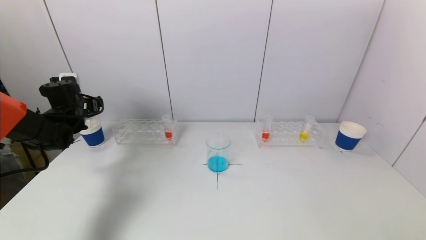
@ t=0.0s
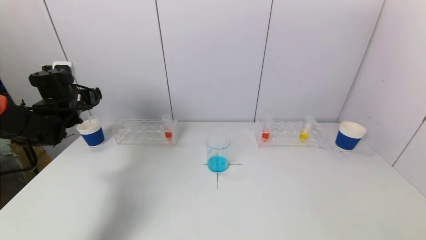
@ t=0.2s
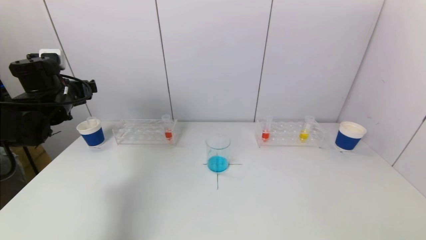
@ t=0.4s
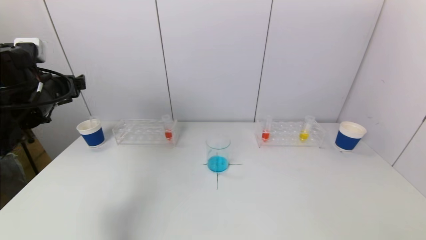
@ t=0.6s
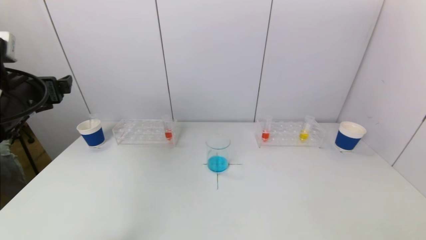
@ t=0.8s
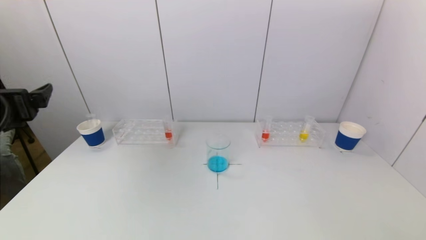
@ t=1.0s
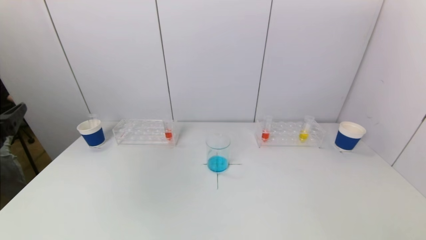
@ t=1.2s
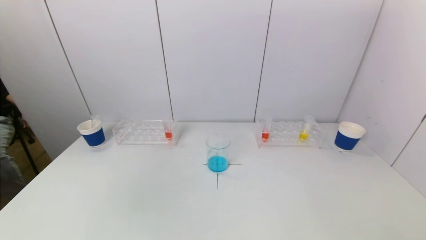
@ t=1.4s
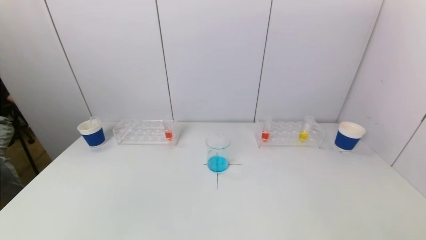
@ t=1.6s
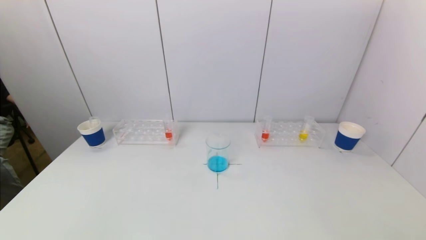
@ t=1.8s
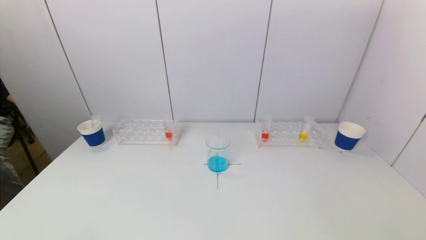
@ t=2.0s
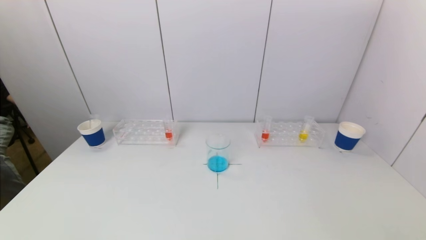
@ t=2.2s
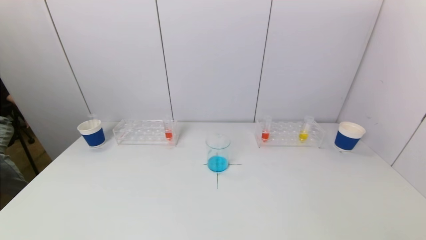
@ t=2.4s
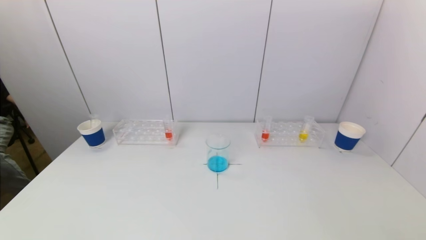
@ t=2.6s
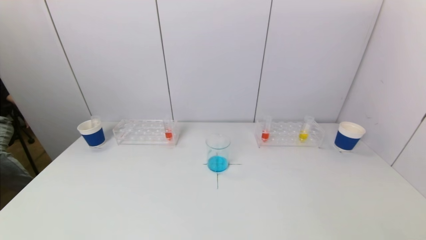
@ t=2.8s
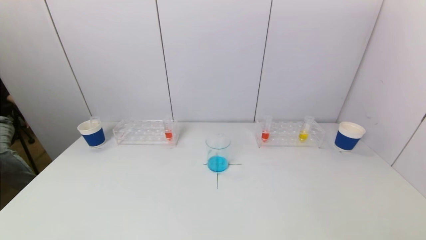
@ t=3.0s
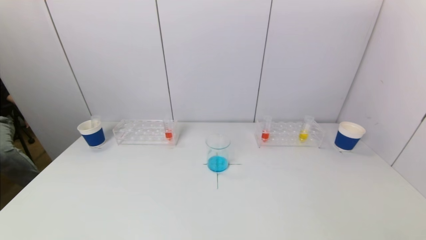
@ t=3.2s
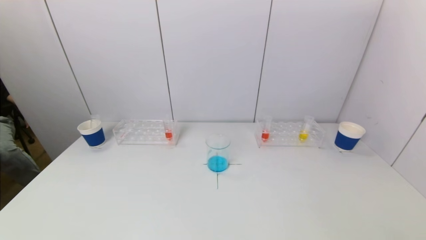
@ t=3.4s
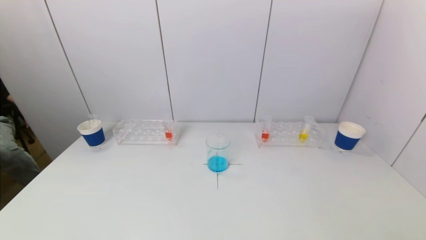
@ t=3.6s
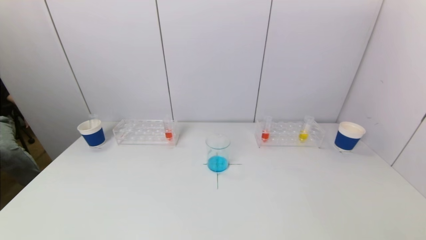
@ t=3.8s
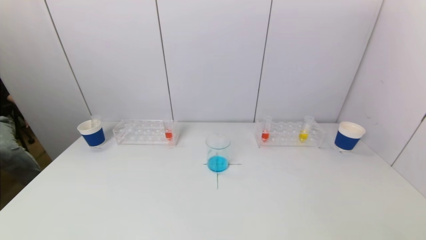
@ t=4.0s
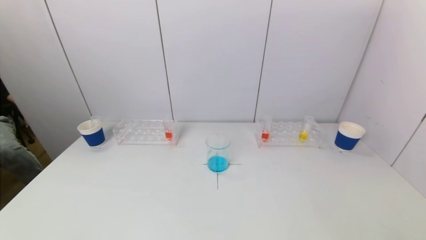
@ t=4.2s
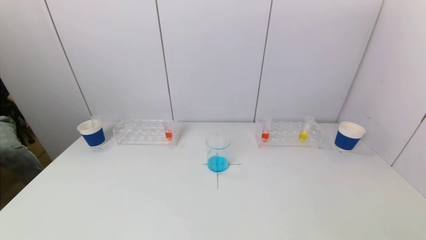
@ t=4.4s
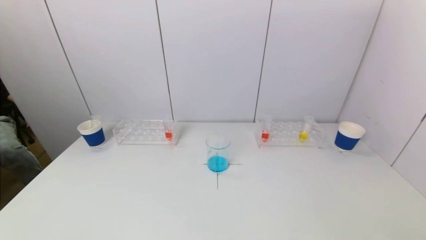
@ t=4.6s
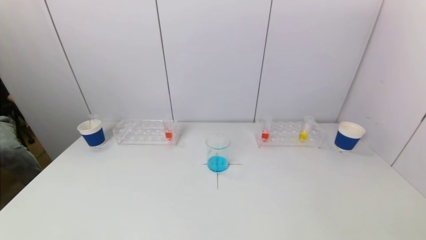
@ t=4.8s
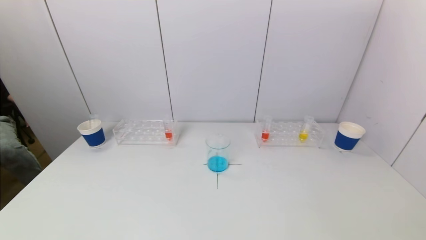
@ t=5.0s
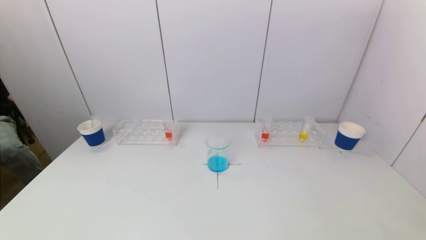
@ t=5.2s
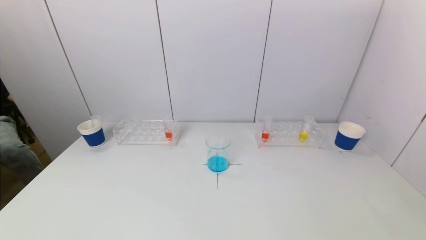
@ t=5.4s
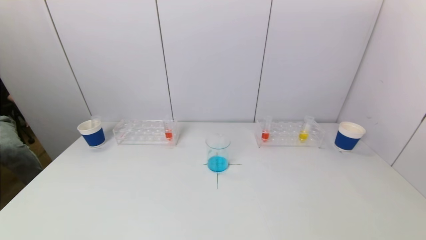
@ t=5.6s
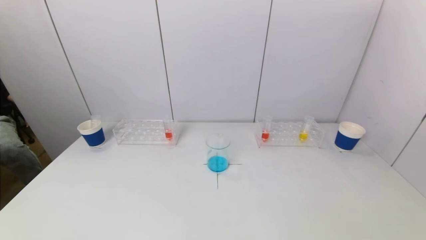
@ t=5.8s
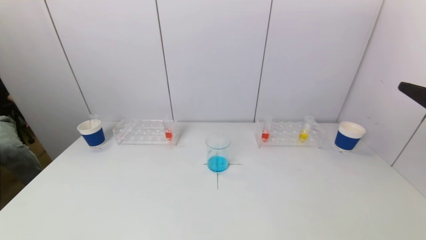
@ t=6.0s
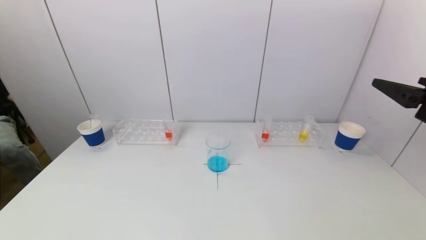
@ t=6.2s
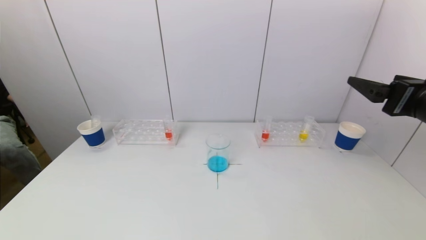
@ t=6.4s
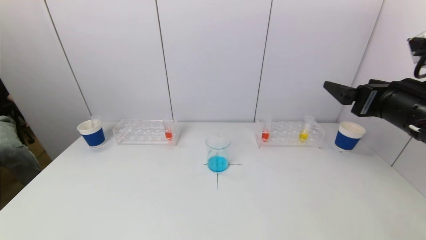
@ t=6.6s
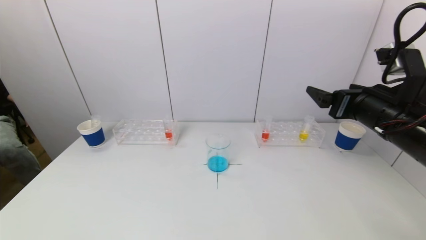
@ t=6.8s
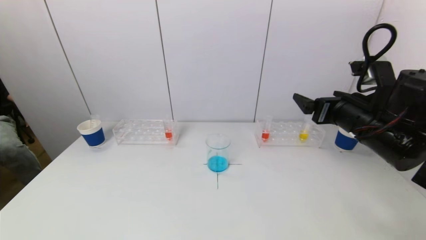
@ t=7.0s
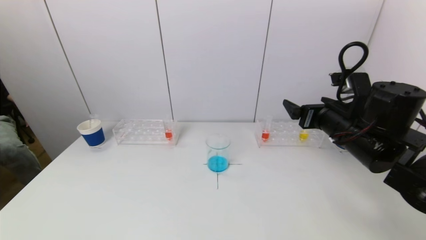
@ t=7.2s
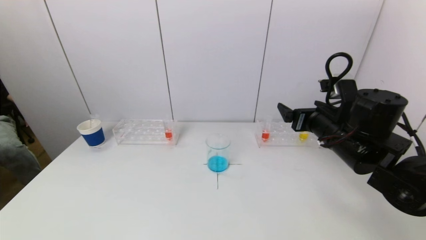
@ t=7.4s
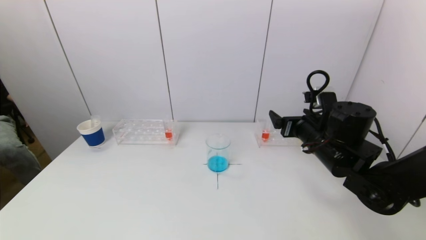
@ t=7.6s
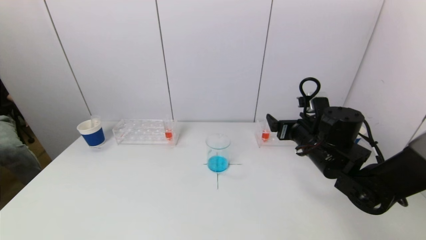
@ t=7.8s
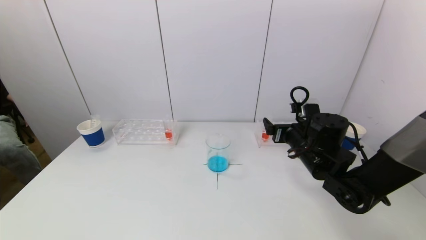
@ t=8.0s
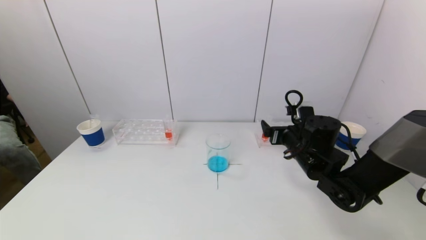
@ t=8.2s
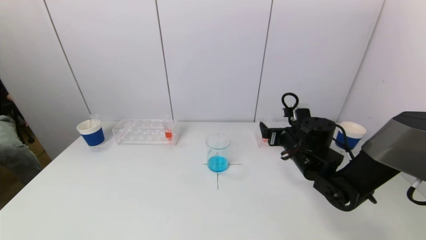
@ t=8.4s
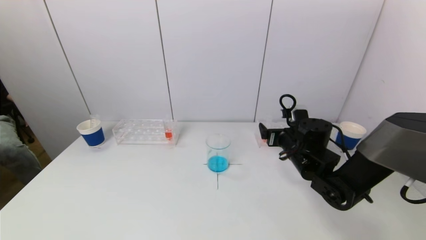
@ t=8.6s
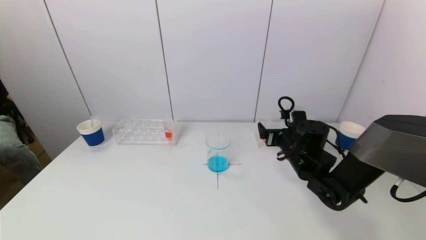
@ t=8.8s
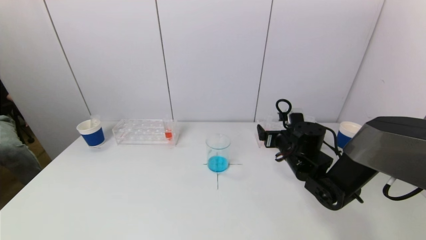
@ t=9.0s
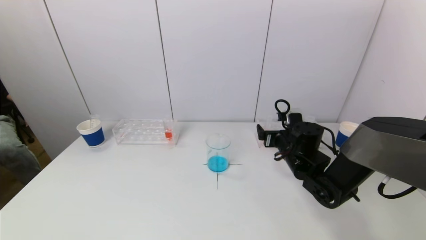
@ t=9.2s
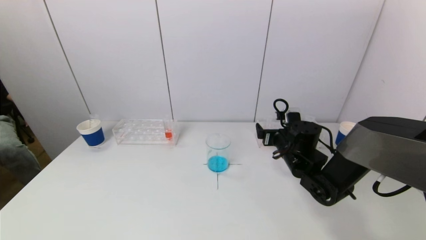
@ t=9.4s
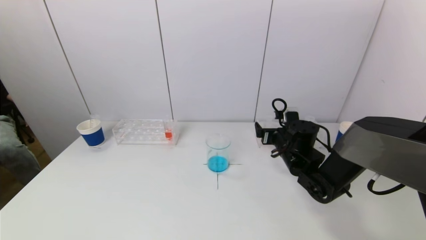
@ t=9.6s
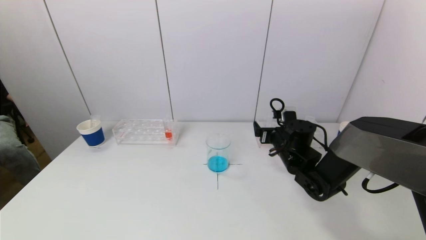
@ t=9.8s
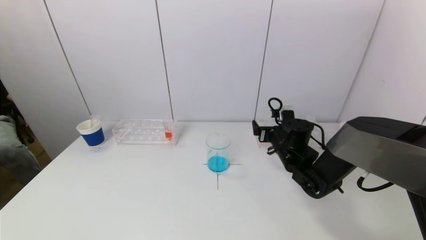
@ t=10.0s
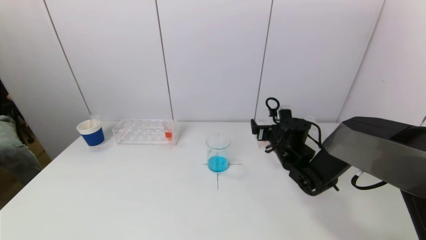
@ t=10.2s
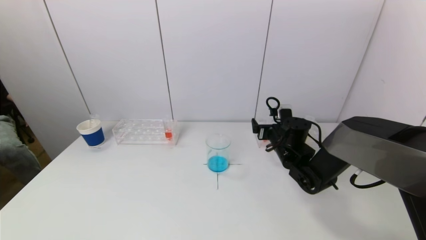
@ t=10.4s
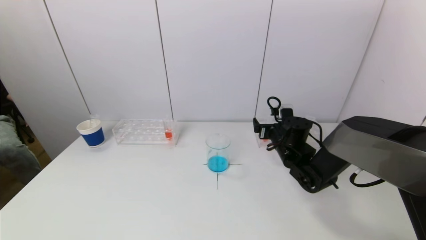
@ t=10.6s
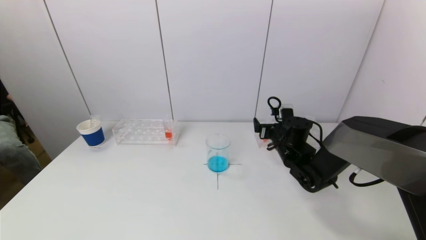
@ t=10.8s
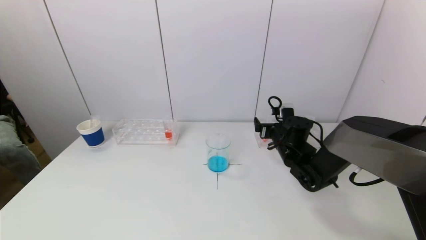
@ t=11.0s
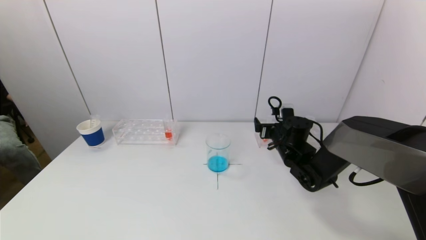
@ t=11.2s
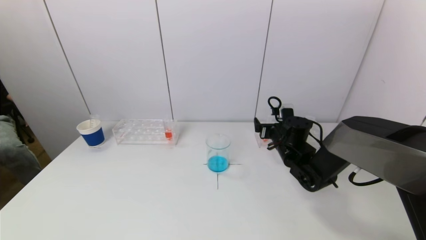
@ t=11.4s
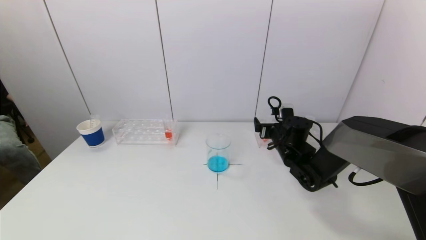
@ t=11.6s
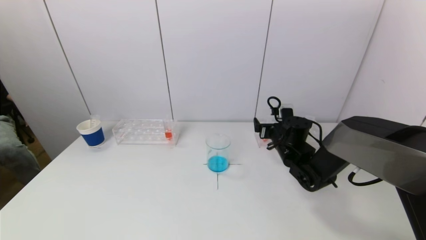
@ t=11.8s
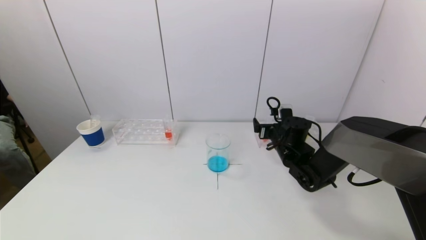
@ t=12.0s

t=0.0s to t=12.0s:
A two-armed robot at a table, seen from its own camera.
Task of the whole recording: pick up a test tube with pigment on left test tube rack and a test tube with pigment on right test tube rack by grippers and pour them into the beaker.
t=0.0s to t=1.6s: The left gripper goes approximately 40 cm backward.
t=3.0s to t=4.4s: Both grippers stay about where they are.
t=4.4s to t=6.0s: The right gripper travels upward and forward by about 25 cm.
t=6.0s to t=7.6s: The right gripper is displaced forward, downward and to the left by approximately 25 cm.
t=7.6s to t=9.0s: The right gripper shifts roughly 10 cm downward.
t=9.0s to t=10.4s: The grippers stay close to where they were, moving slightly.
t=10.4s to t=12.0s: Neither gripper changes place.

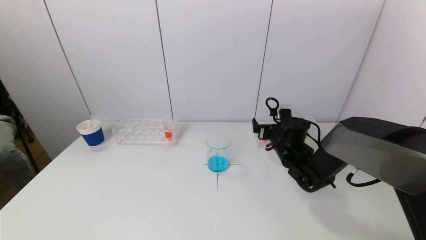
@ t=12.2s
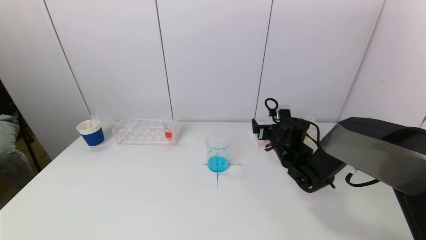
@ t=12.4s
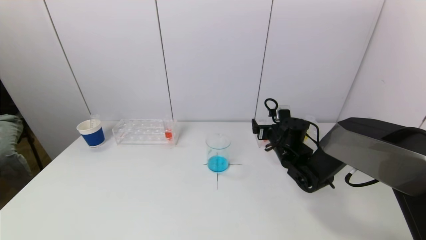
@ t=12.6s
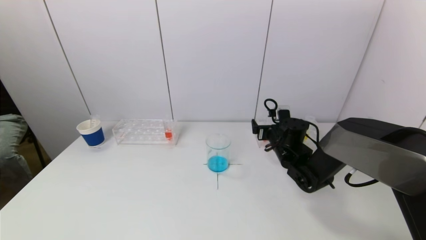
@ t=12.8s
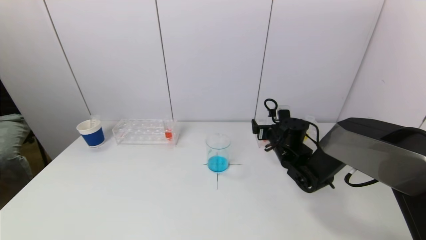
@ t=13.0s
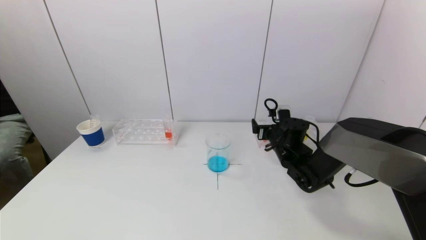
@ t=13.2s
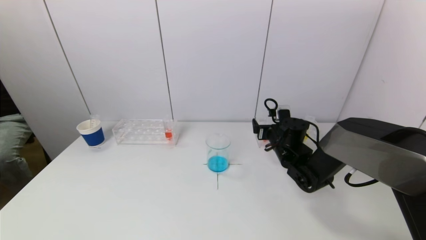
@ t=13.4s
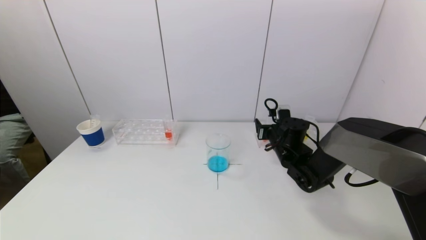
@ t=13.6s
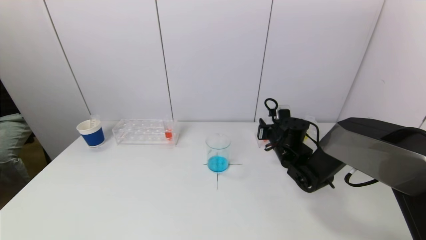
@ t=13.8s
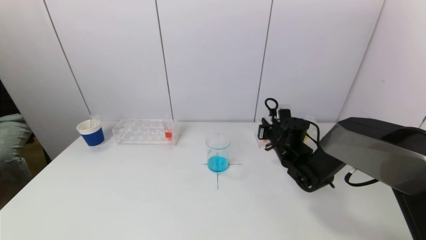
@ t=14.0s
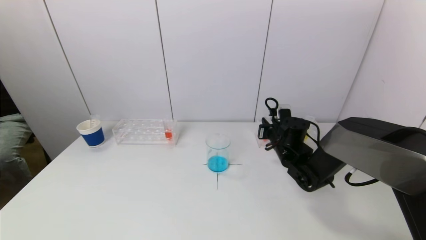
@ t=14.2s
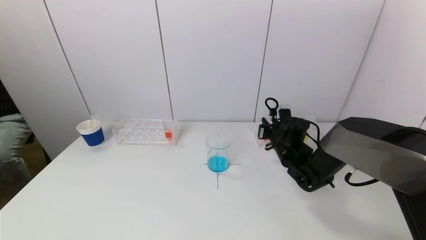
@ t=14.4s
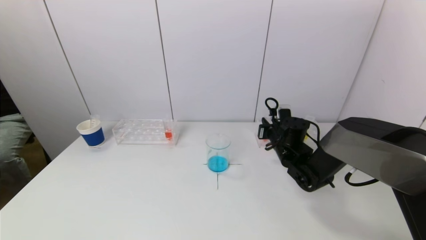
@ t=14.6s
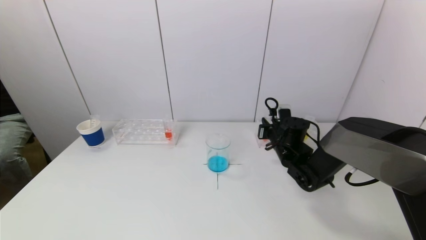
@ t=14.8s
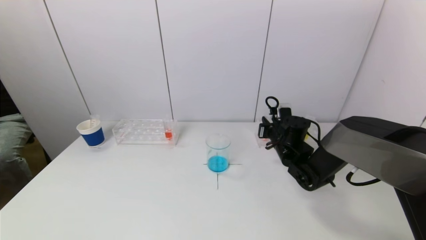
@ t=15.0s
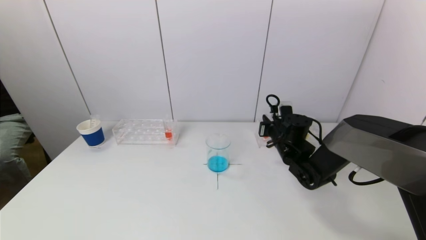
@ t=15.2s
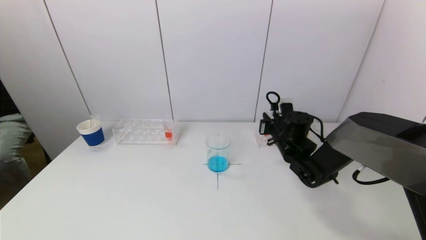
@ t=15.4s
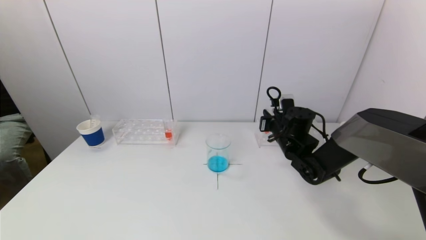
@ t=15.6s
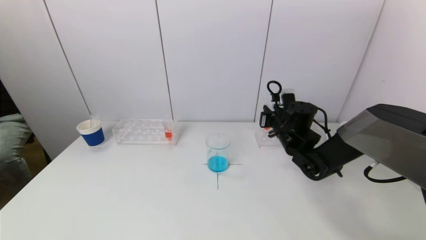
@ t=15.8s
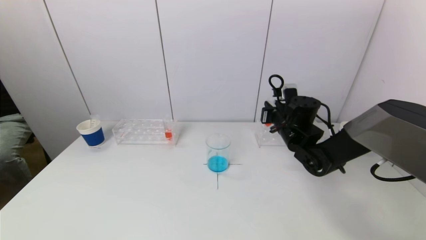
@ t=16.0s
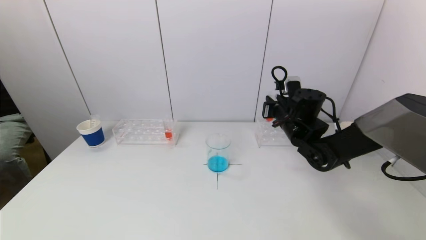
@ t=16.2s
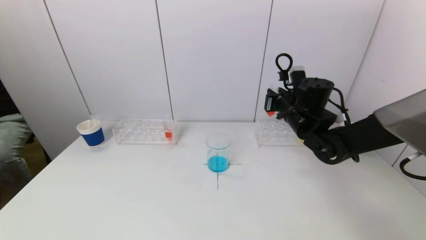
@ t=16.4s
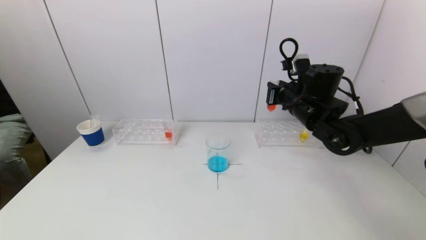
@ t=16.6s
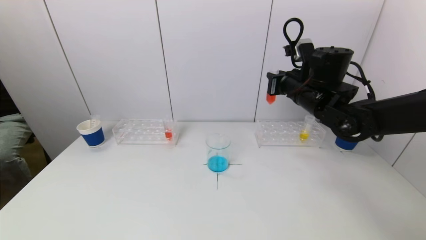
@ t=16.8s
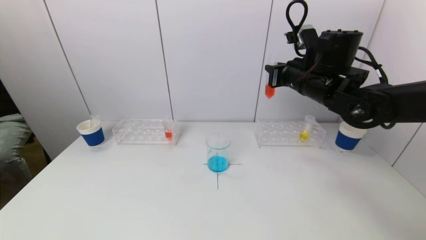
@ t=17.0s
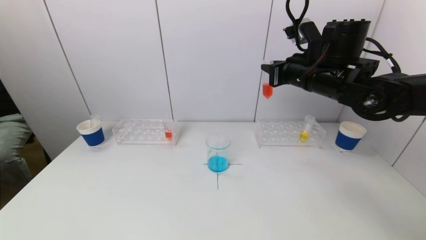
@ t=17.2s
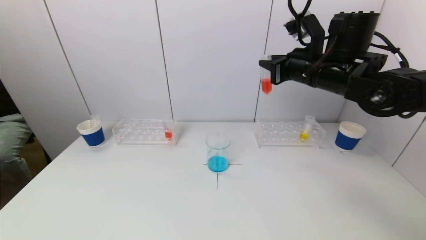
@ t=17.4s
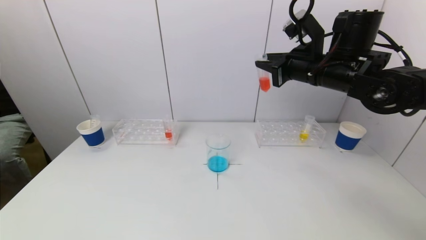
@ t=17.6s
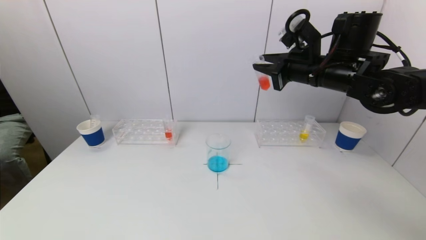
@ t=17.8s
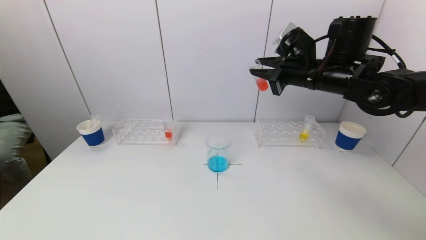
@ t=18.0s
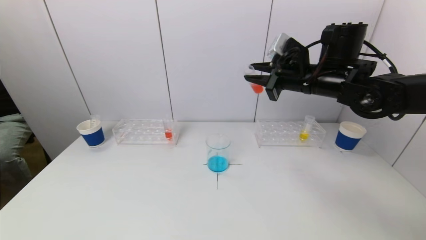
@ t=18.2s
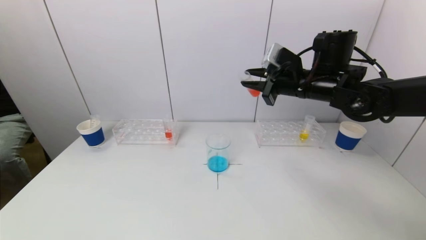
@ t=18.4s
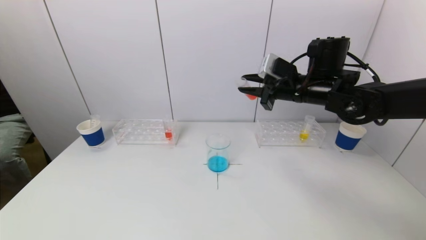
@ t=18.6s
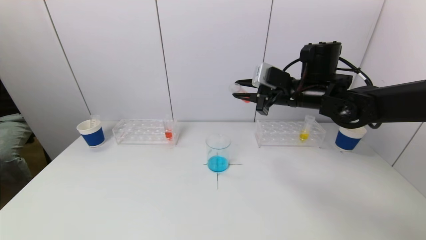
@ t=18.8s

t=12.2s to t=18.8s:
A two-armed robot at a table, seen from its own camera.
Task of the whole recording: pick up a test tube with pigment on left test tube rack and a test tube with pigment on right test tube rack by grippers and pour them into the beaker.
t=12.2s to t=13.8s: The right gripper closes.
t=13.8s to t=15.4s: There are only small adjustments of the grippers.
t=15.4s to t=17.2s: The right gripper travels upward by approximately 20 cm.
